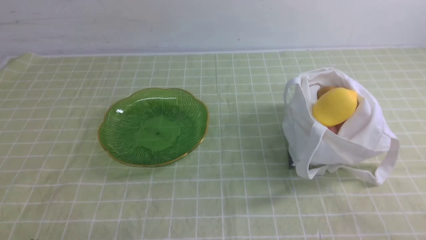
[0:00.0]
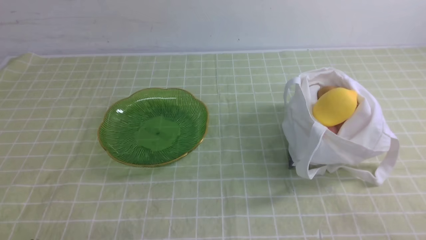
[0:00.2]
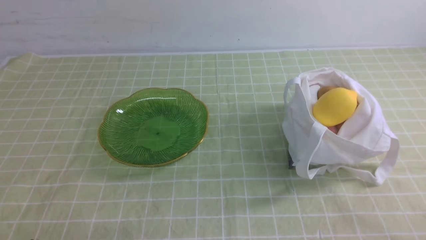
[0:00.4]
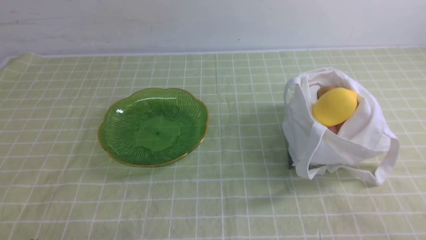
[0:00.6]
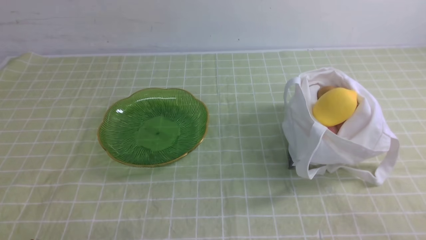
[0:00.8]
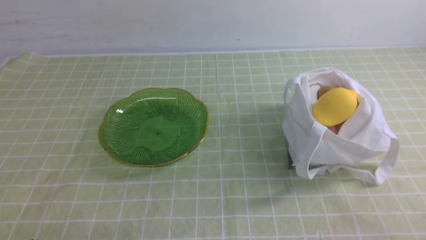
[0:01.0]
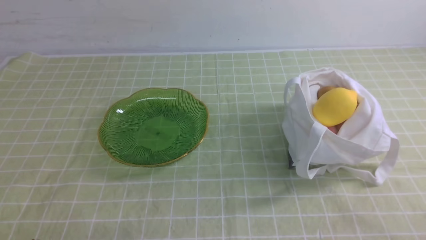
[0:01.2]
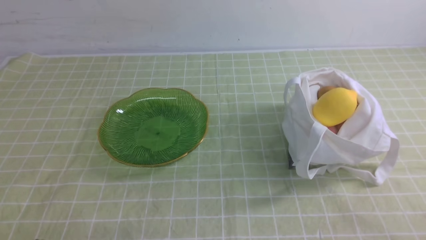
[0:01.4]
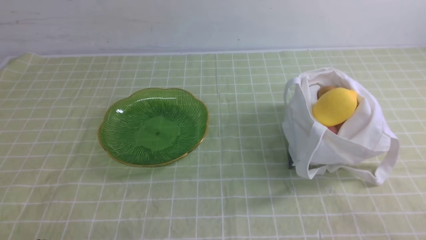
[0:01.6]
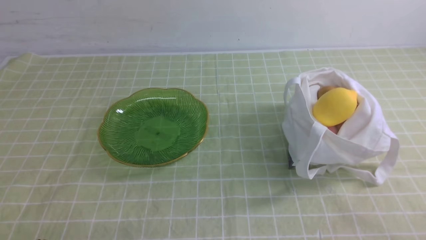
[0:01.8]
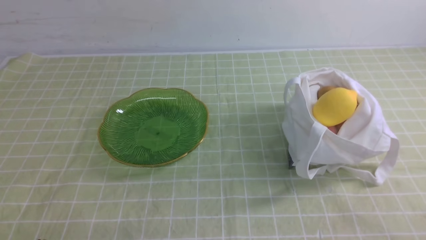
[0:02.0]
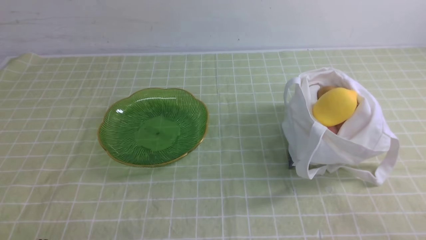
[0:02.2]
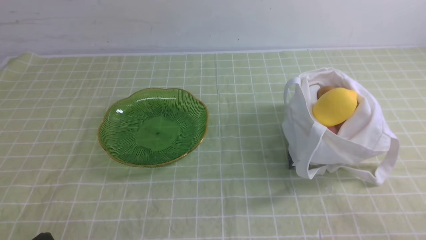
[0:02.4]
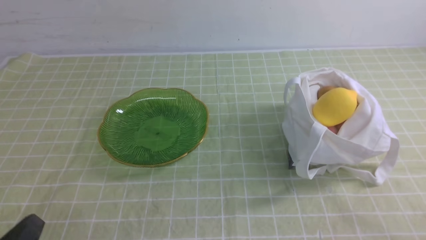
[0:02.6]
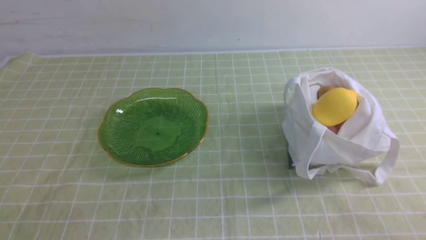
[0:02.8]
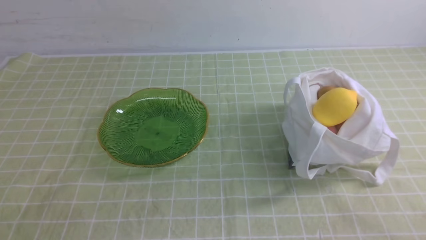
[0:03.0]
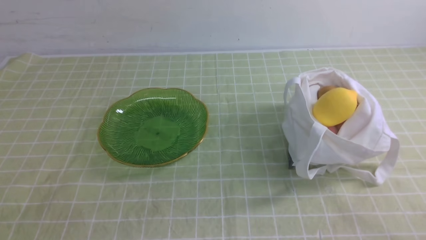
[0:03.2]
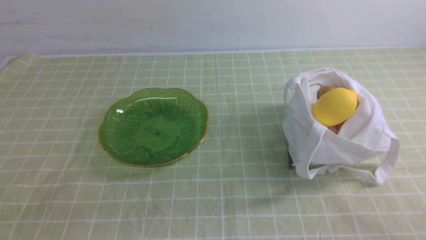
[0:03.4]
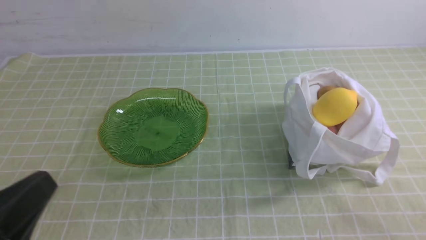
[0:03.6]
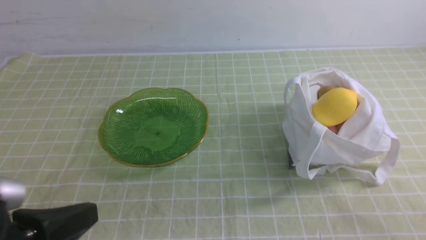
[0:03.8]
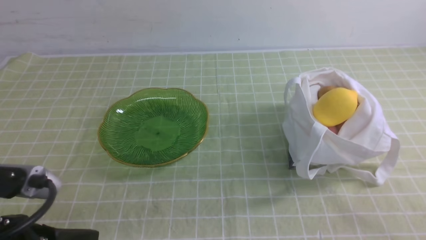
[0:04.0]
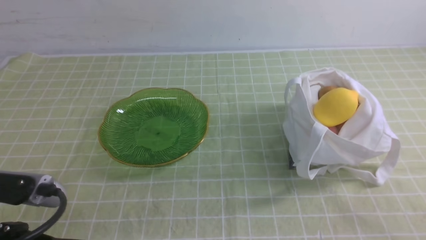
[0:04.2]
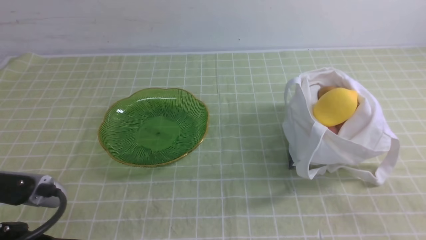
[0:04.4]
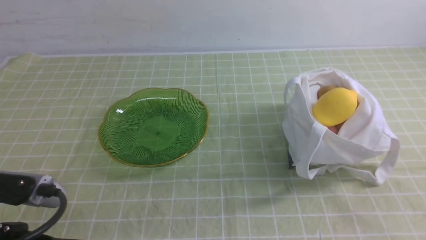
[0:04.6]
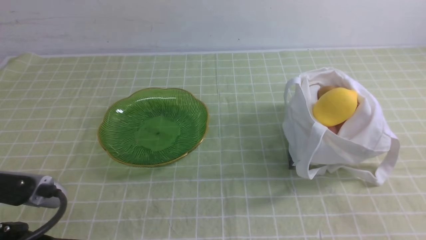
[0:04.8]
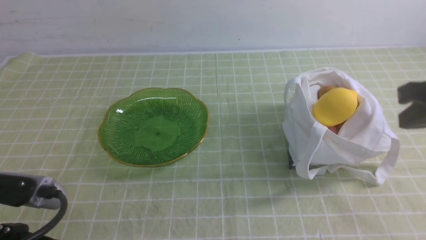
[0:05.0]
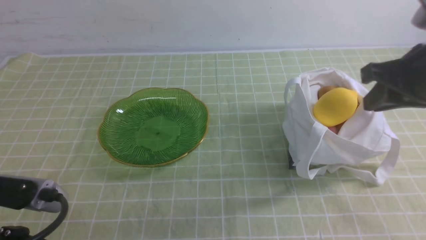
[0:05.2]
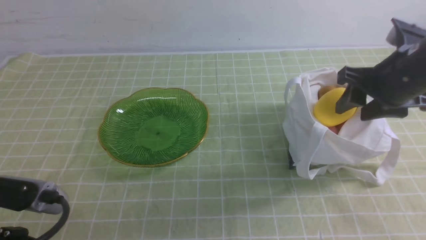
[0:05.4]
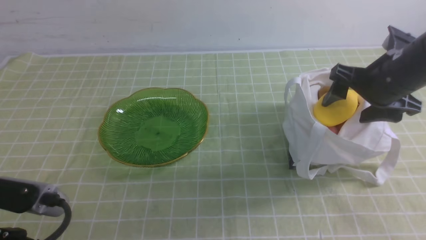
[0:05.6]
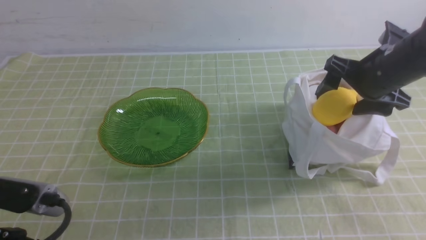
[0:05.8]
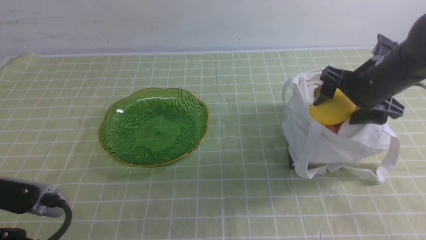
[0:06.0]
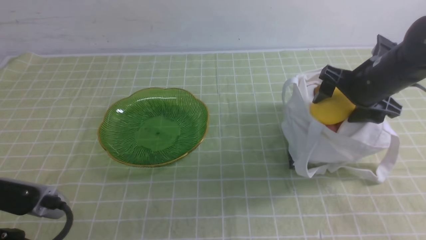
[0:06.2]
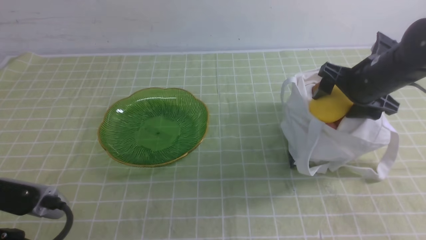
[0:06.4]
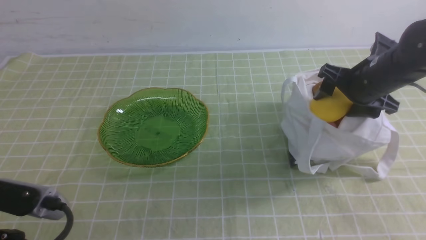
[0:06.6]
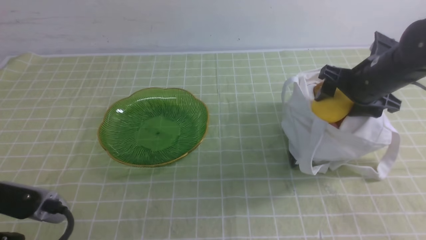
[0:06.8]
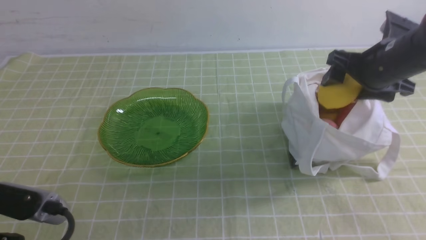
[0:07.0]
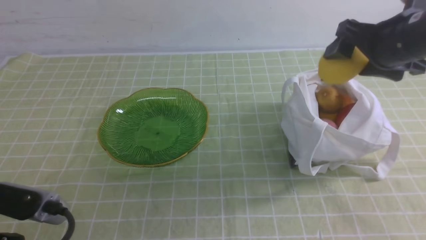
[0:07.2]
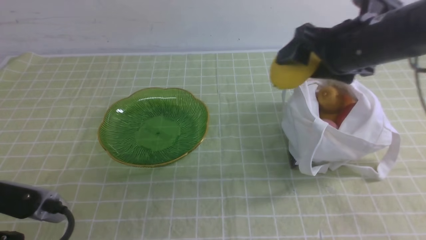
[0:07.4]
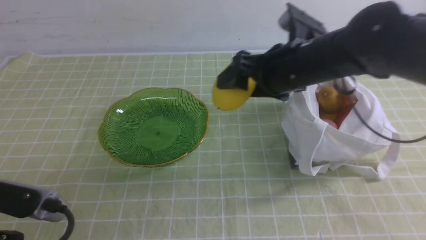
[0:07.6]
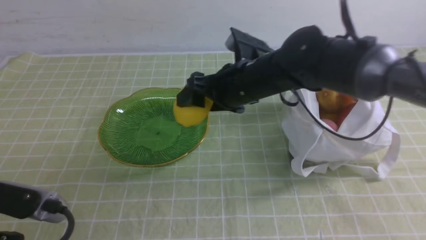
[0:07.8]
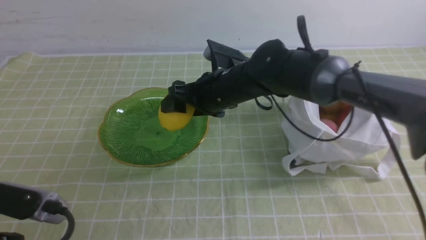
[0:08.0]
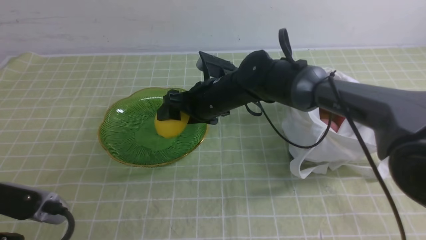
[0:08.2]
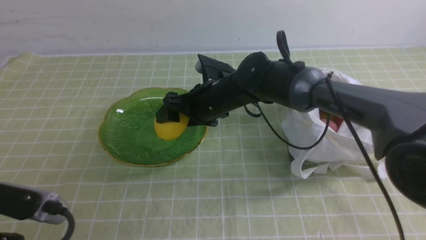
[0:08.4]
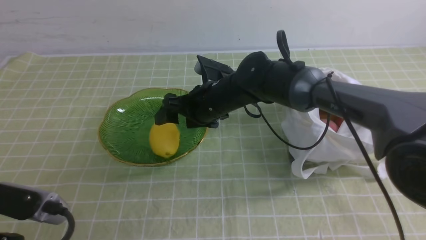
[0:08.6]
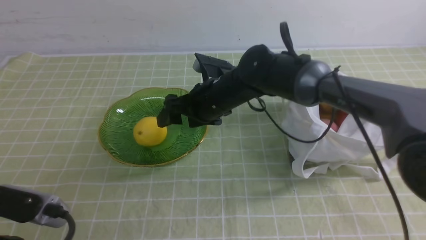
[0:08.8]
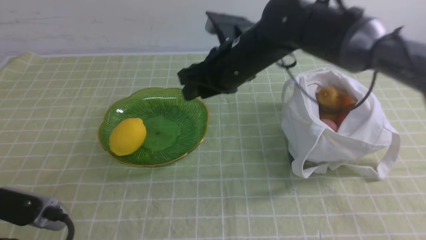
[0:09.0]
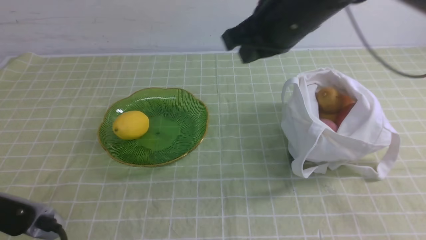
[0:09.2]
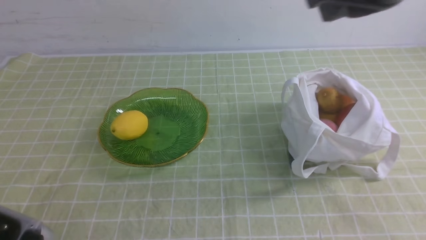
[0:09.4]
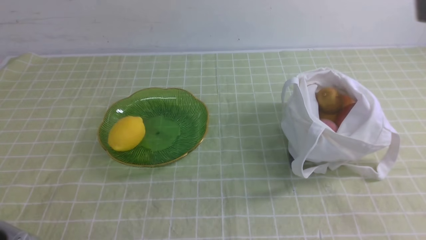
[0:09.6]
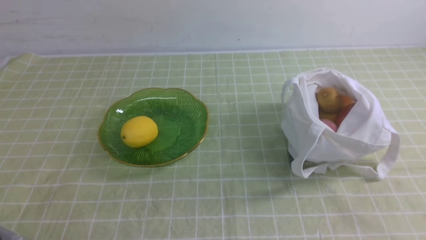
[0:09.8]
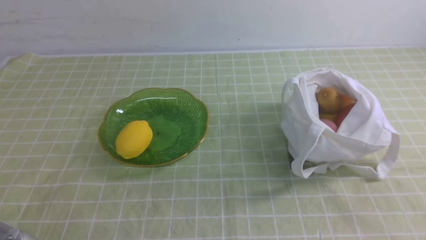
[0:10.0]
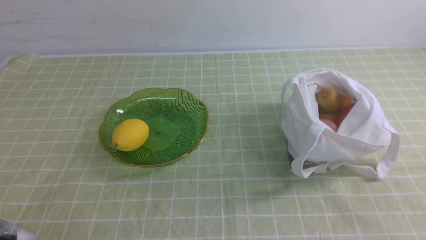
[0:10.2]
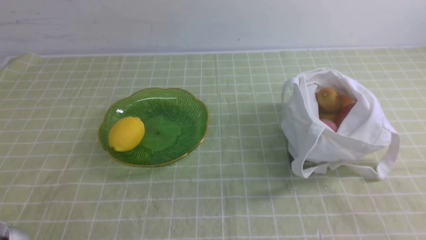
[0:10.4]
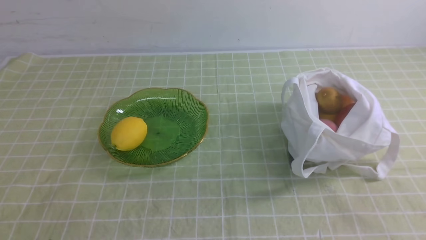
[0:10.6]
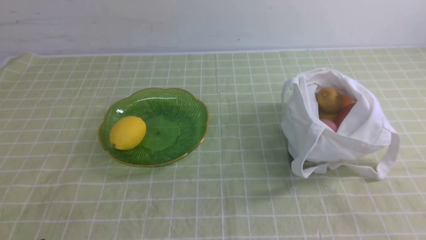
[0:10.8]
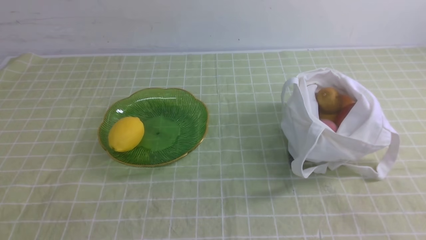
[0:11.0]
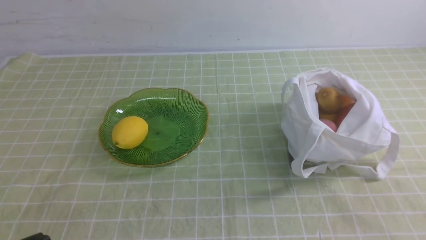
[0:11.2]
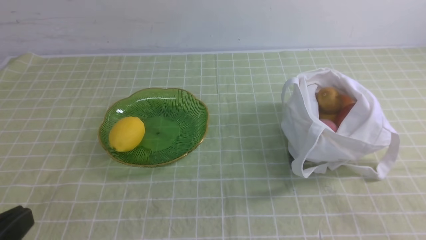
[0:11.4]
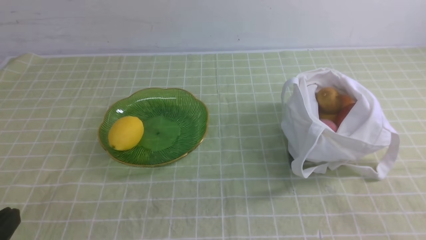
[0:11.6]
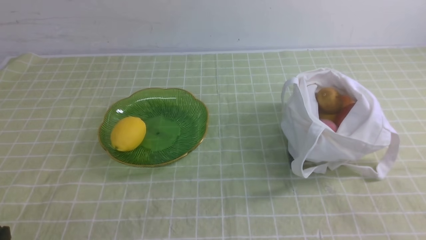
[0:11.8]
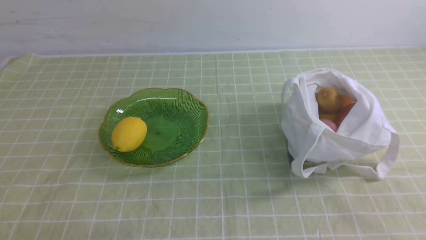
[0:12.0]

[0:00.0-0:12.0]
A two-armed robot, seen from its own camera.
Step, 0:00.0 to 0:07.0: use the right arm to grab a lemon from the bag.
Step, 0:07.2 to 0:08.4: use the right arm to put the lemon into the empty plate on the left.
0:03.0 to 0:04.4: The left gripper travels upward by approximately 5 cm.
0:04.4 to 0:06.0: The right gripper goes approximately 30 cm forward, and opens up.
0:06.0 to 0:07.6: The right gripper moves to the left, approximately 15 cm.
0:07.6 to 0:09.0: The right gripper travels to the left by some 5 cm, travels downward and back again, roughly 10 cm each way, and closes.
0:09.0 to 0:10.4: The right gripper moves backward and to the right, about 40 cm, and closes its fingers.

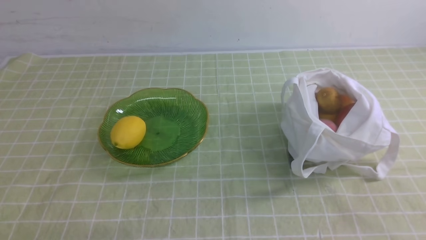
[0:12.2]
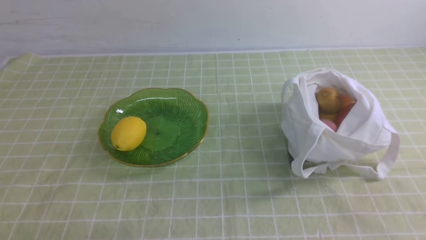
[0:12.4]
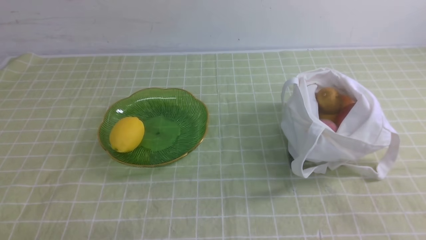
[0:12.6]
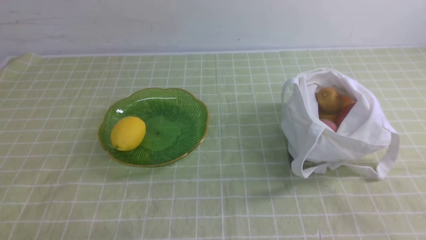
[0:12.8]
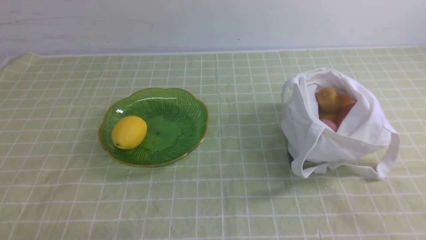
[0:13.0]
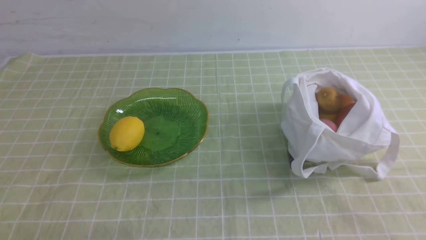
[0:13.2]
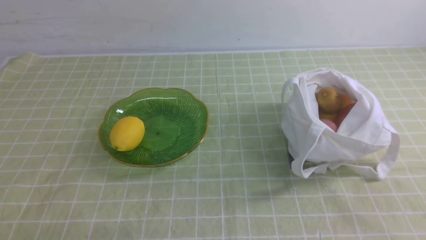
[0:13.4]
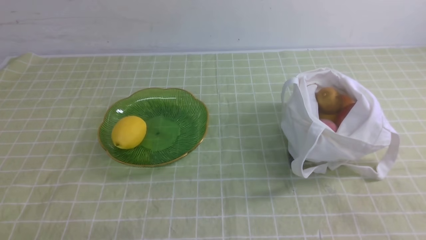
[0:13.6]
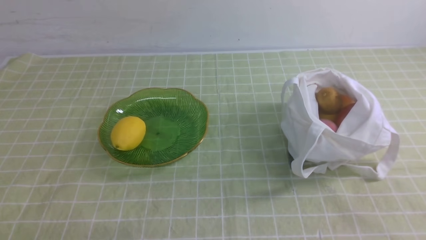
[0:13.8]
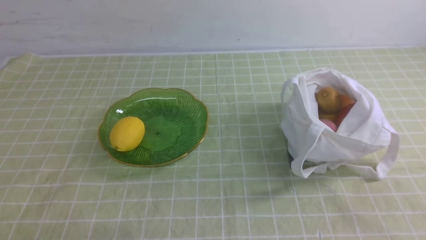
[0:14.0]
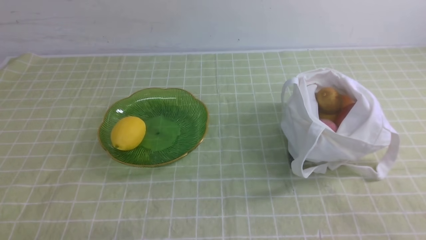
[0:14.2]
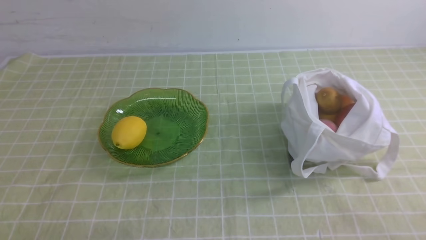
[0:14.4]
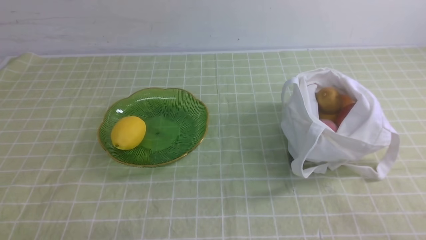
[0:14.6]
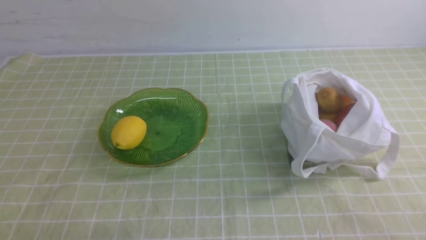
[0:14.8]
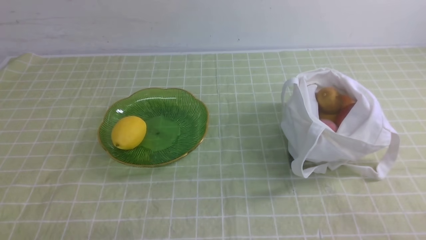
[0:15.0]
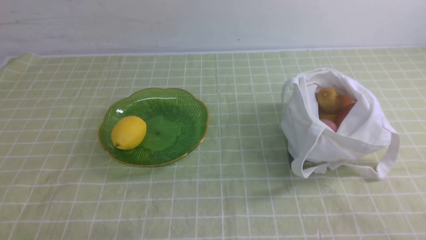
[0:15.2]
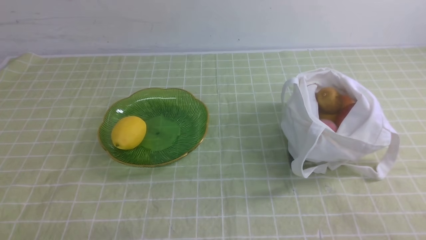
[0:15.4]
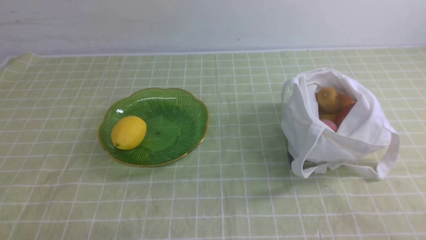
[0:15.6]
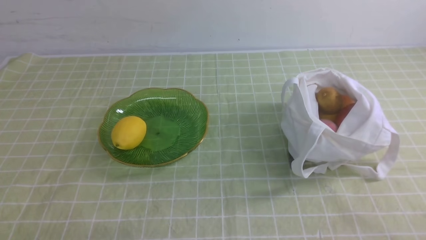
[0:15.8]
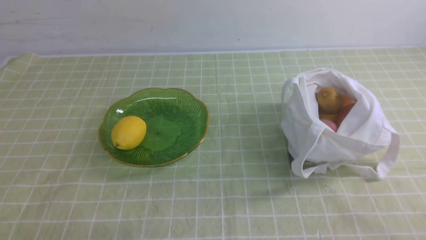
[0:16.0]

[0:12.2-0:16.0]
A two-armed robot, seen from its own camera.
0:12.2 to 0:13.4: Neither gripper changes place.
0:14.8 to 0:16.0: Both grippers stay about where they are.

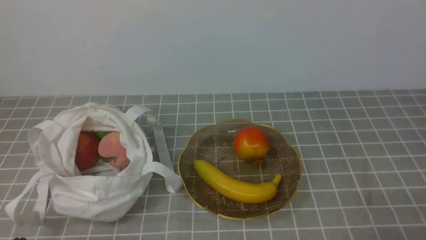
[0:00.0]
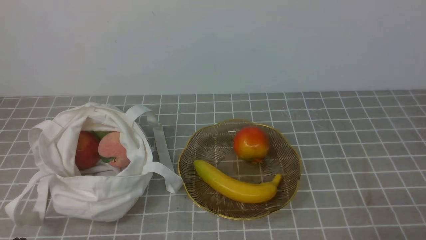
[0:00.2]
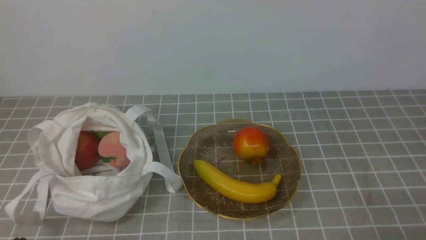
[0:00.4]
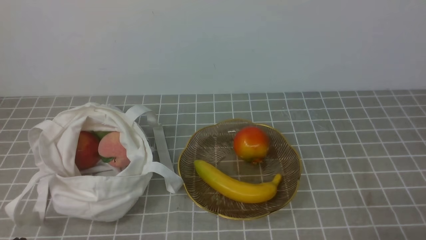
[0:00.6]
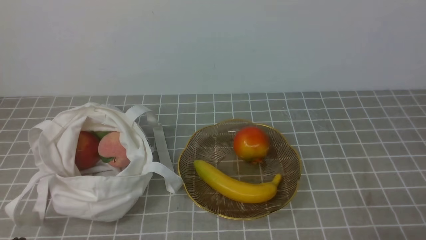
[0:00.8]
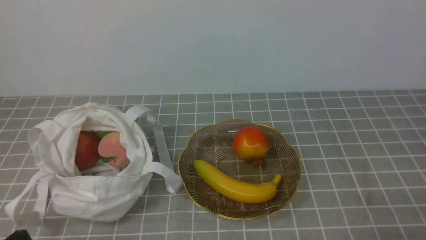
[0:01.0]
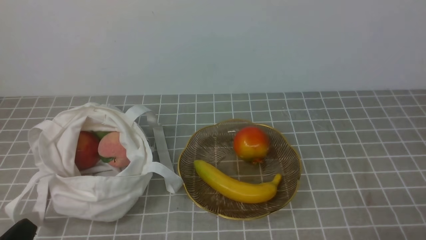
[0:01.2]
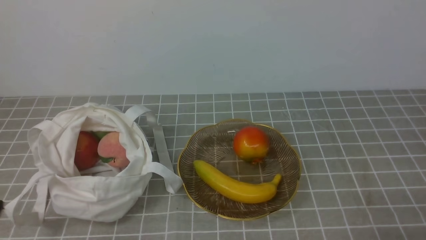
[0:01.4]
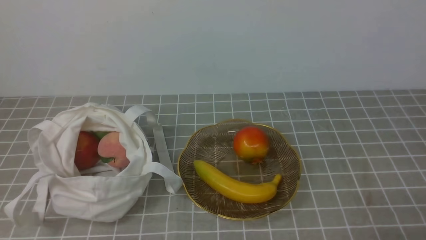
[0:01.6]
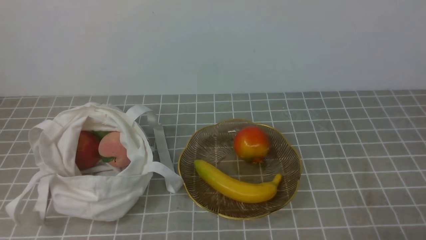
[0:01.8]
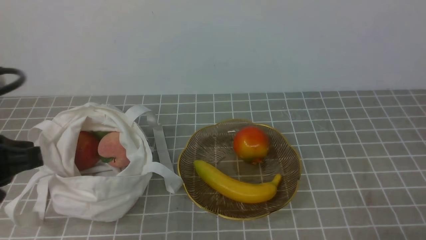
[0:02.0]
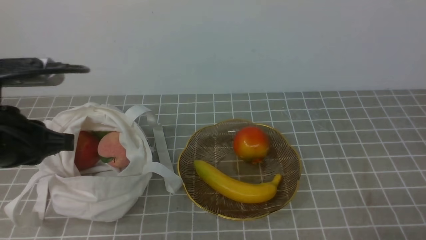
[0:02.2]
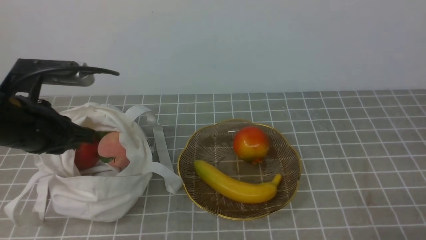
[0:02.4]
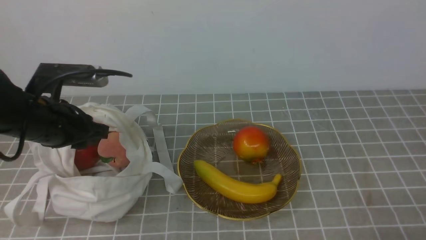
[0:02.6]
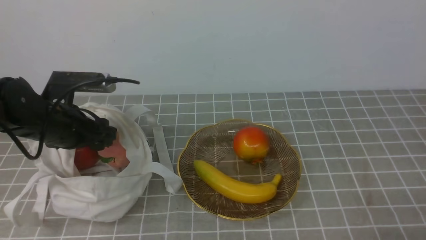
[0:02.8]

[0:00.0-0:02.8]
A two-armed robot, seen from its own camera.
0:01.4 to 0:02.8: The left gripper shifts roughly 25 cm forward, and opens up.
